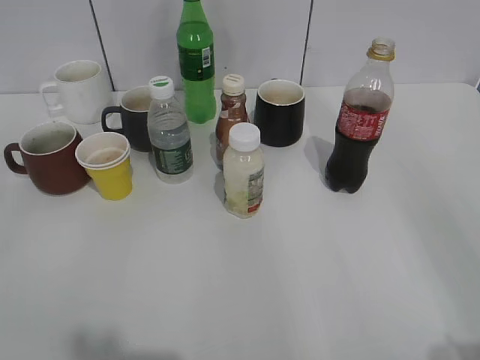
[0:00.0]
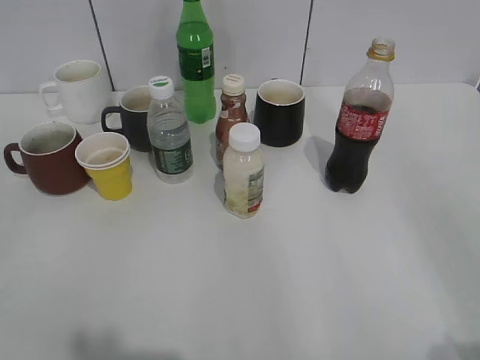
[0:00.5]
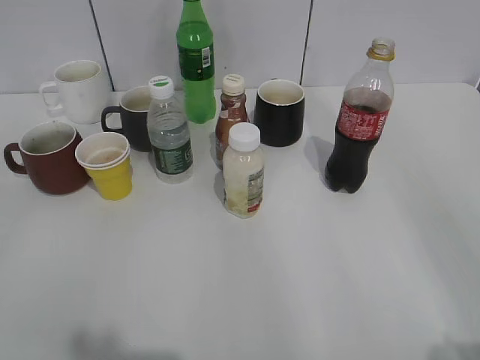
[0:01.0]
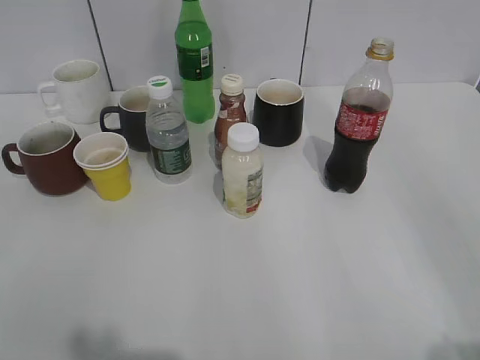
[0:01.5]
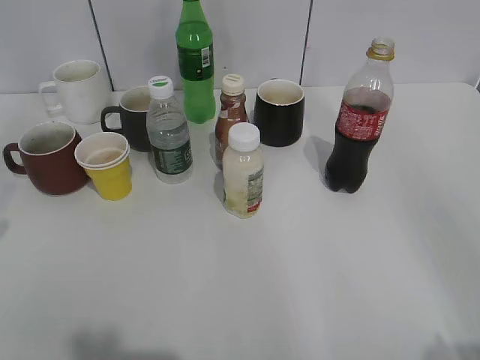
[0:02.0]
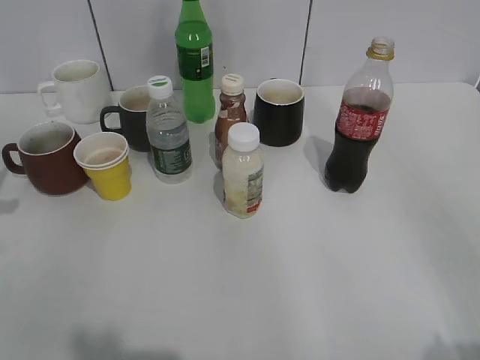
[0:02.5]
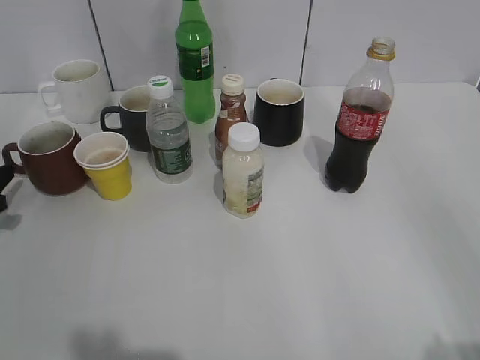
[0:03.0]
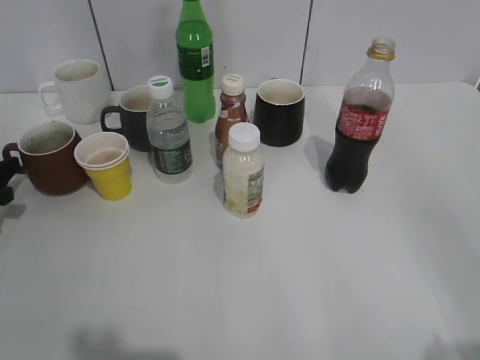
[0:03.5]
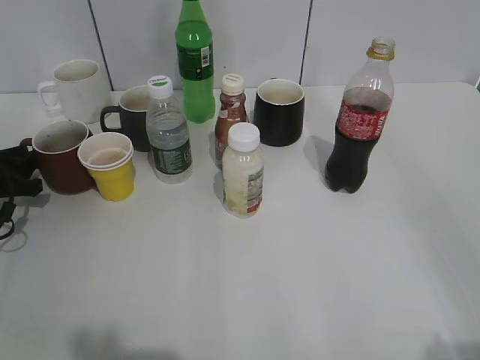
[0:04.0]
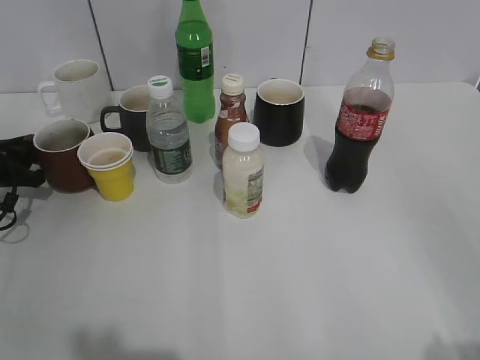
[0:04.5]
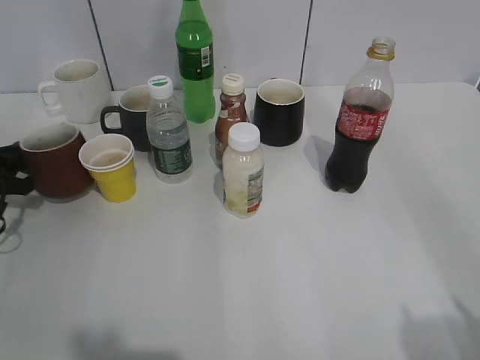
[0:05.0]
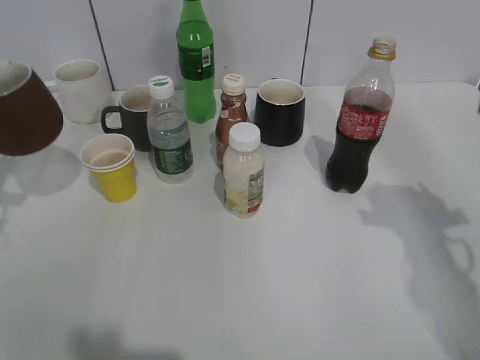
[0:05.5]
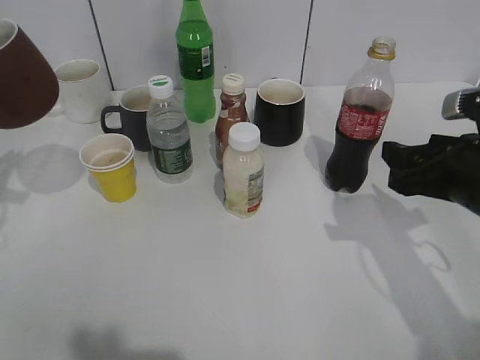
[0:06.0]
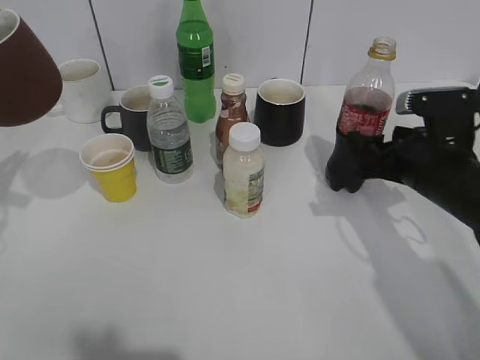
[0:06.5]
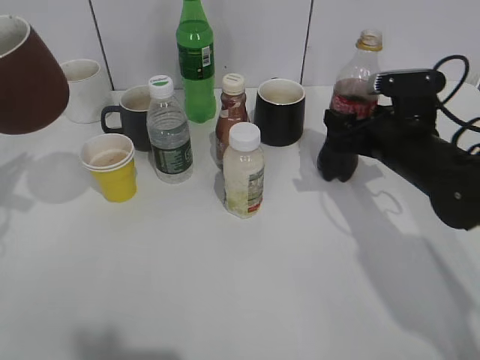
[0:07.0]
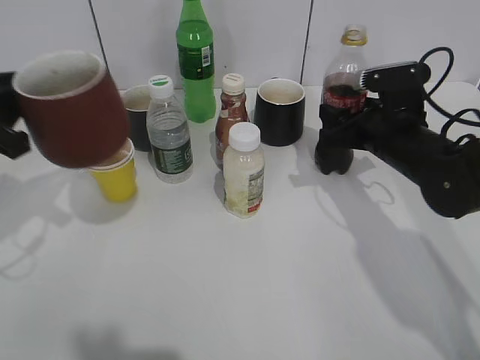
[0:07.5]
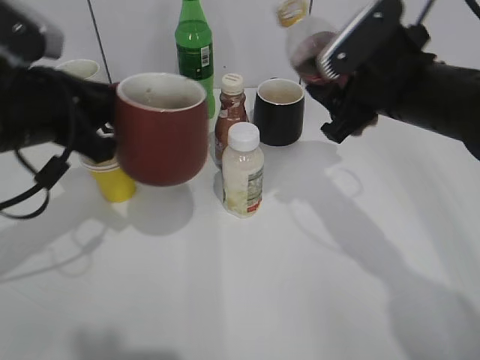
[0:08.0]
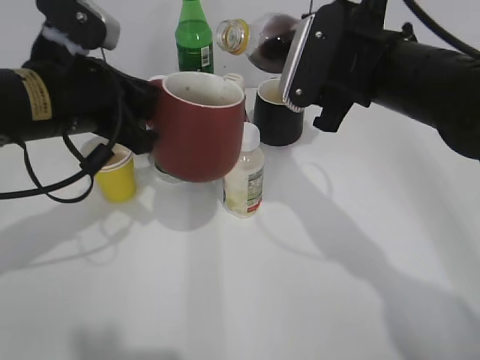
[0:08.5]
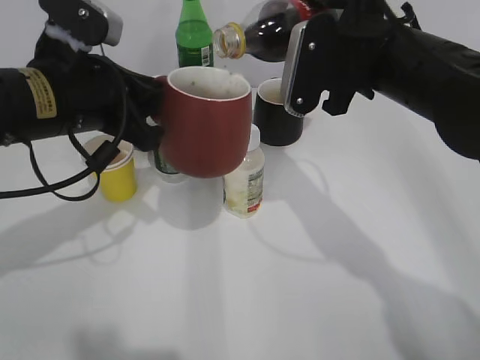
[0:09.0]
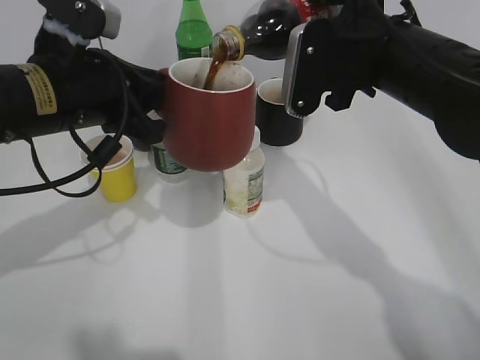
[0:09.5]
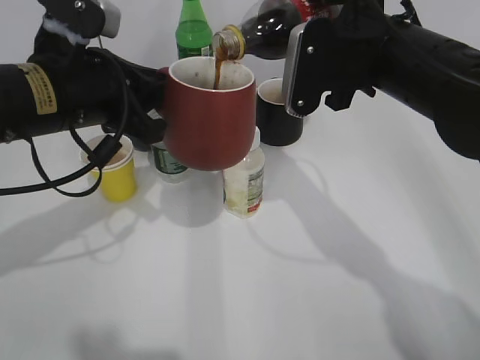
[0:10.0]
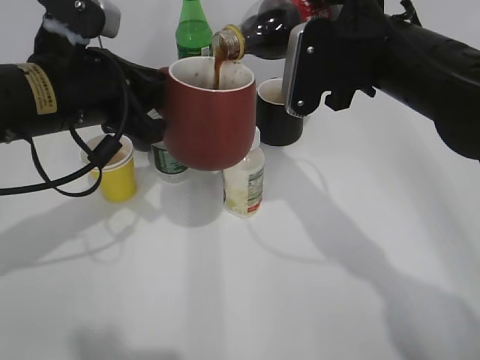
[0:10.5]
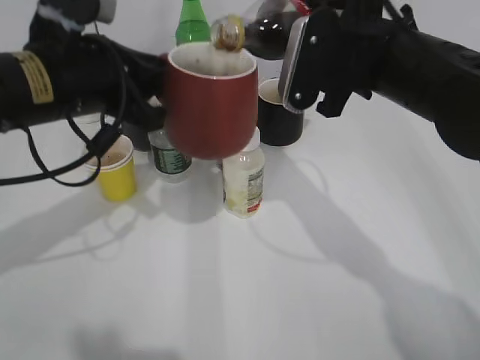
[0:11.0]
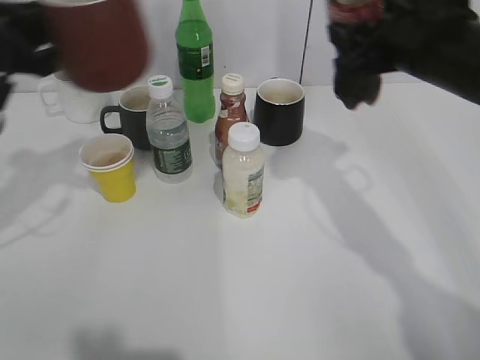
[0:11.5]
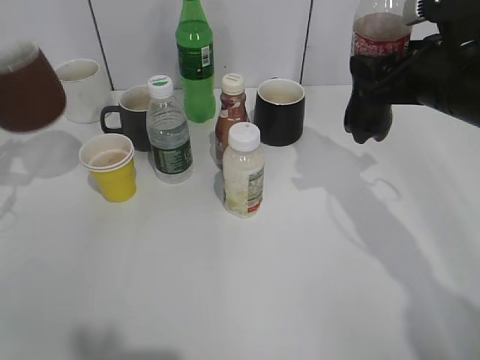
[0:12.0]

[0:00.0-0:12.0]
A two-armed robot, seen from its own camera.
Step, 0:01.0 to 0:04.5: Grasp the red cup with left gripper.
Step, 0:05.0 to 0:06.5: Grasp the bottle with cola with right gripper.
Step, 0:07.0 to 0:11.0: Pour the cola from bottle to cup with right gripper.
0:02.0 to 0:04.0: The left gripper shifts roughly 30 cm downward and forward, and opens, then closes once more.
0:04.0 to 0:06.0: The left gripper is displaced upward and backward by roughly 15 cm, and closes up. Meanwhile the right gripper is displaced forward and downward by roughly 25 cm.
0:06.0 to 0:08.0: The right gripper shifts approximately 10 cm forward and to the left; the left gripper heads to the right, covering approximately 15 cm.
0:10.0 to 0:12.0: The right gripper heads to the right, covering about 10 cm; the left gripper heads to the left, covering some 20 cm.

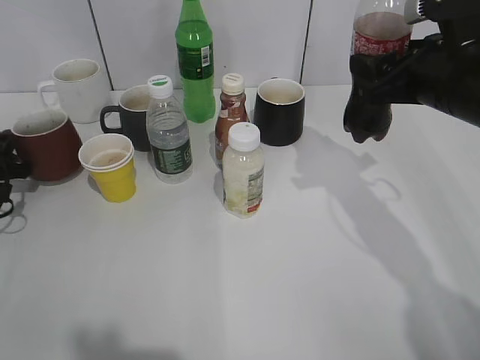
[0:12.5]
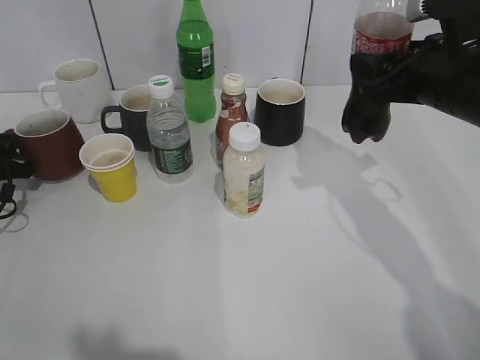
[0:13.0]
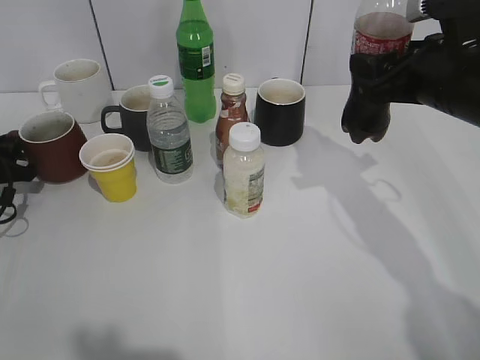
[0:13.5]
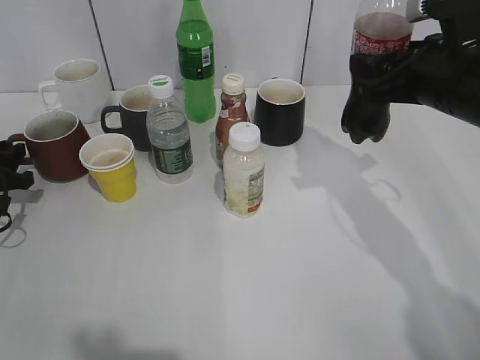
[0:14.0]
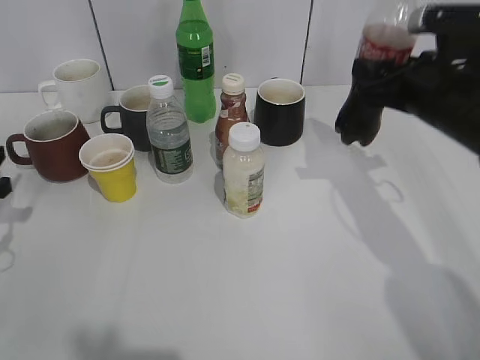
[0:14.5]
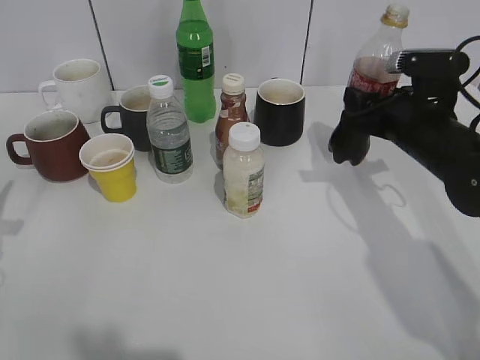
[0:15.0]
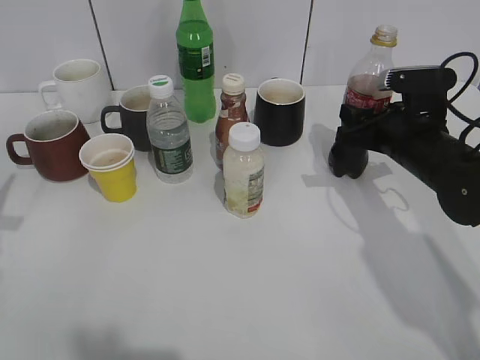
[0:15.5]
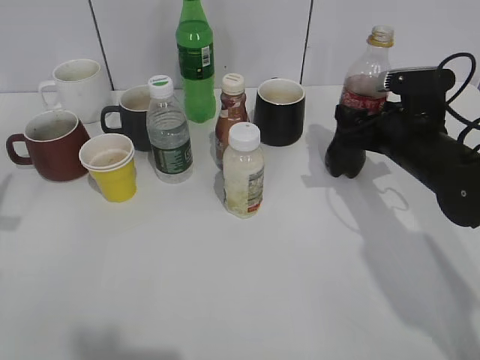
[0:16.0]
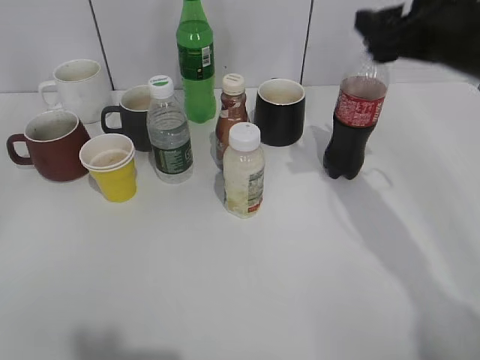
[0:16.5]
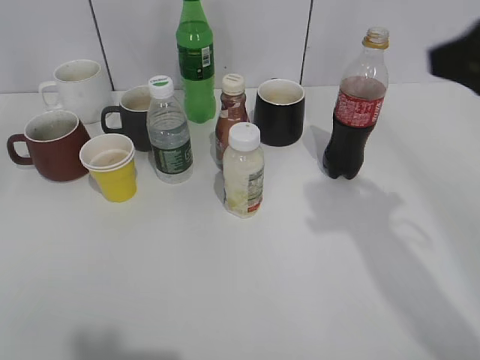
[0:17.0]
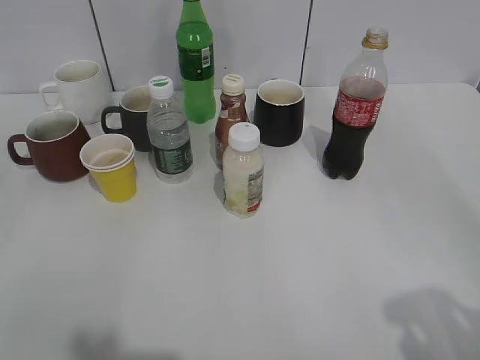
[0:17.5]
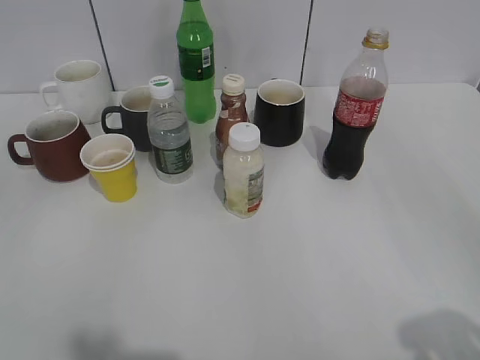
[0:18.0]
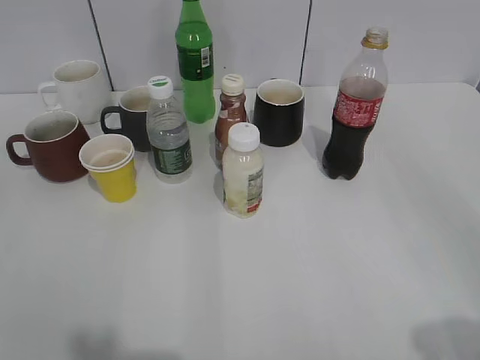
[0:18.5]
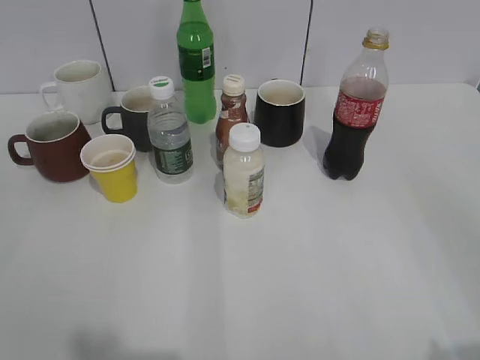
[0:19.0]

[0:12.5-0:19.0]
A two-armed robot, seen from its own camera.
Step, 0:12.5 to 0:16.0: Place the cola bottle on the table with right gripper.
0:12.5 to 0:14.5: The left gripper moves backward, some 5 cm, and opens.
0:14.5 to 0:17.0: The right gripper travels upward and backward by approximately 20 cm, and opens up. The left gripper heads upward and backward, covering roughly 30 cm.
0:17.0 to 0:19.0: The left gripper moves backward, approximately 10 cm; the right gripper travels backward by about 20 cm.
